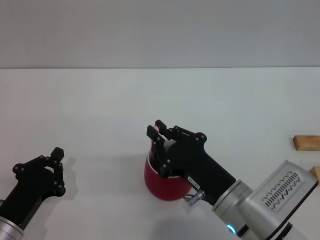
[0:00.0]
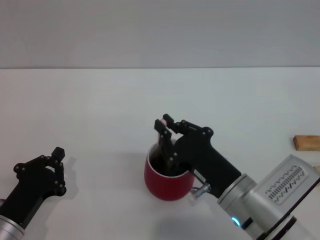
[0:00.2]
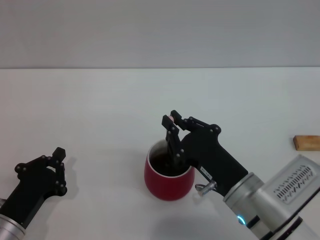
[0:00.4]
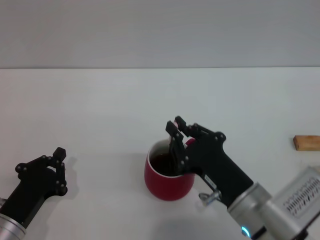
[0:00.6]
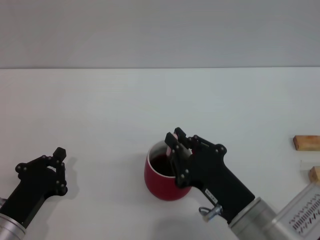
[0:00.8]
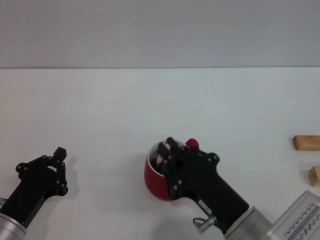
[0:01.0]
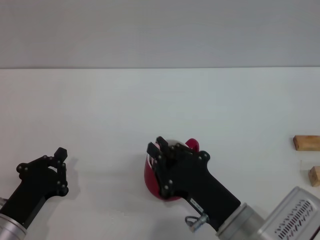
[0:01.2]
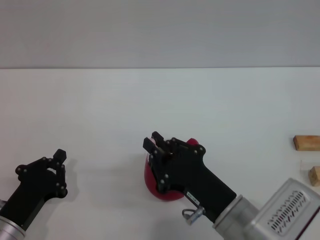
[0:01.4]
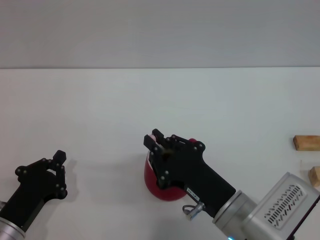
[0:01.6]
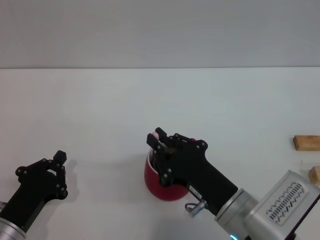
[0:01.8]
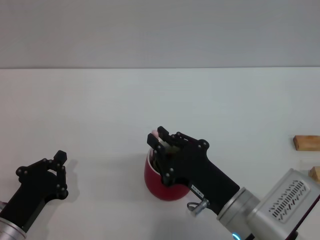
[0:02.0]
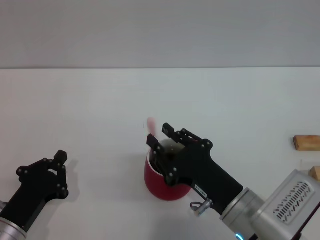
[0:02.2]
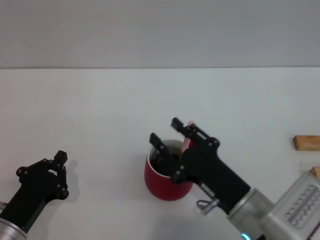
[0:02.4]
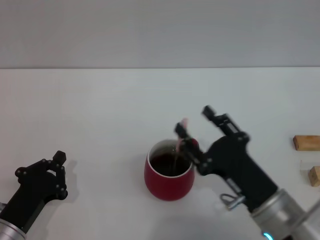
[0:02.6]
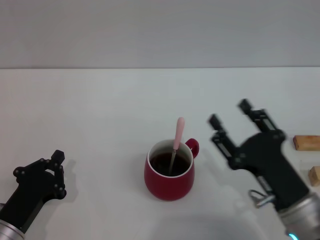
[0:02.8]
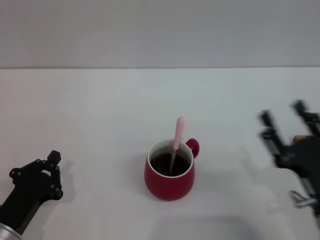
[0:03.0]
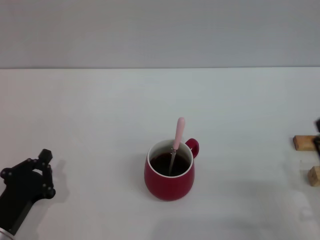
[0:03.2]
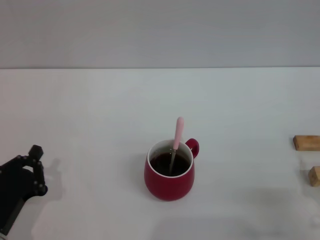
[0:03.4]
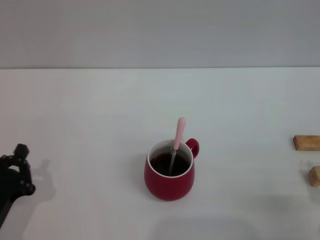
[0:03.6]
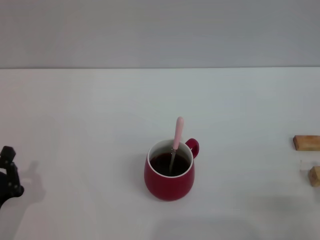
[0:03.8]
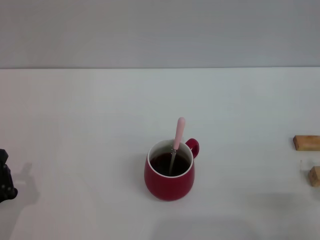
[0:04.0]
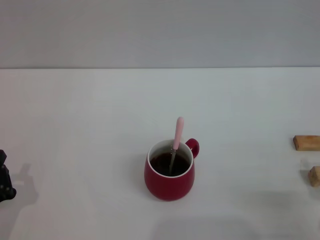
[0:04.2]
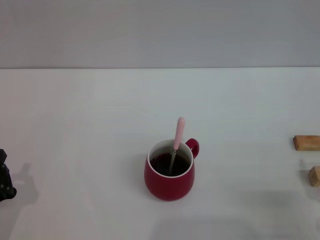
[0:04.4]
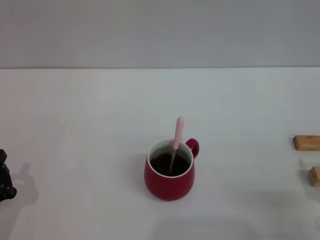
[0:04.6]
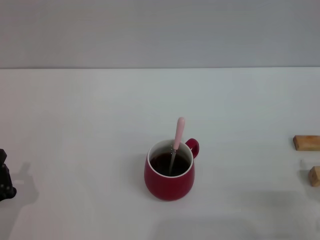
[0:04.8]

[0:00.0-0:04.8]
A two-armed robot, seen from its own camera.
Task of the whole recording: Move the red cup to the center, lift the pink spoon, stir it three times in the cup, and put the spoon into the cup.
Step, 0:00.0 to 0:02.6: Stir the coffee in the cup with the right gripper.
0:00.0 to 0:01.6: There are only small adjustments of the grippers.
0:01.6 to 0:03.2: The right gripper moves to the right, approximately 15 cm, and opens its fingers.
0:03.2 to 0:04.8: The grippers make only small movements.

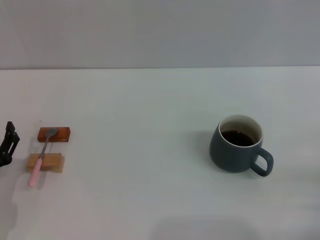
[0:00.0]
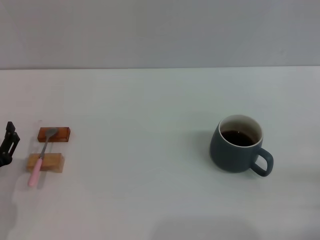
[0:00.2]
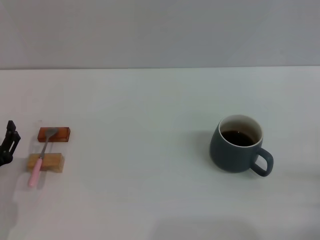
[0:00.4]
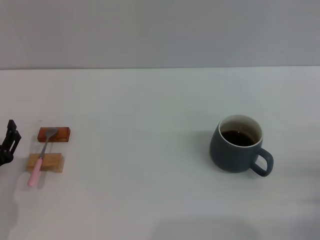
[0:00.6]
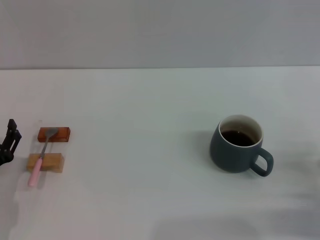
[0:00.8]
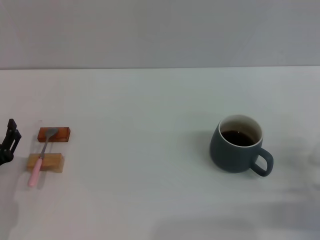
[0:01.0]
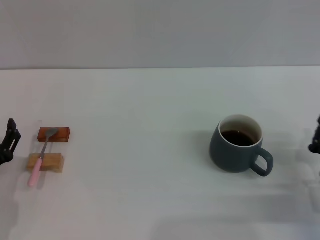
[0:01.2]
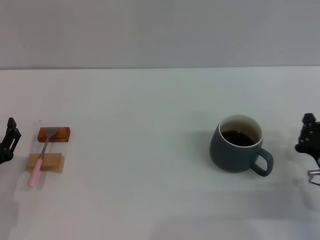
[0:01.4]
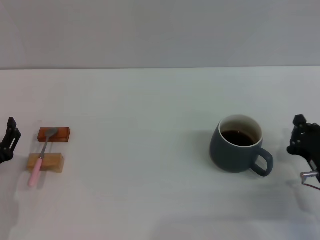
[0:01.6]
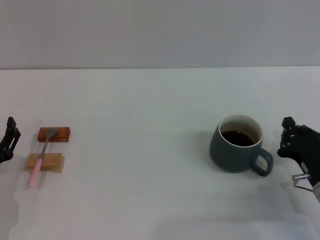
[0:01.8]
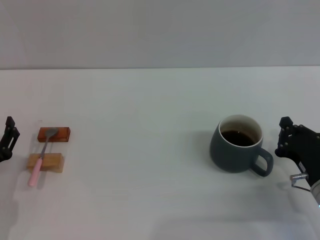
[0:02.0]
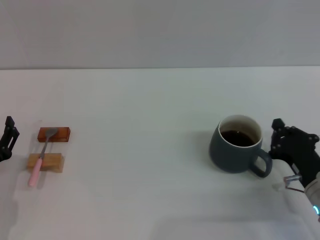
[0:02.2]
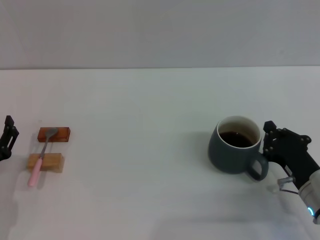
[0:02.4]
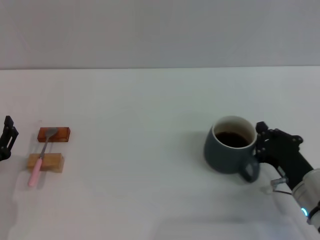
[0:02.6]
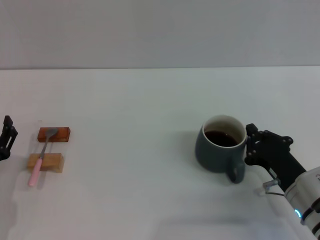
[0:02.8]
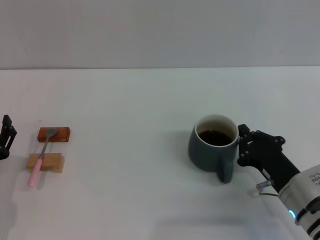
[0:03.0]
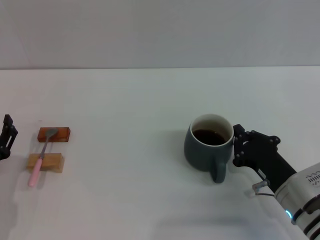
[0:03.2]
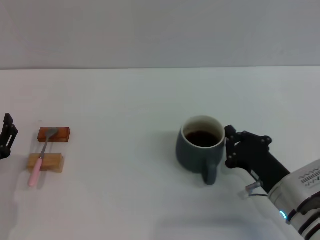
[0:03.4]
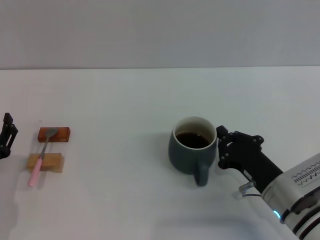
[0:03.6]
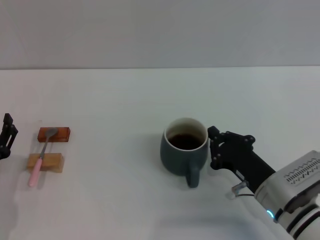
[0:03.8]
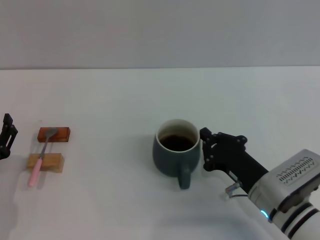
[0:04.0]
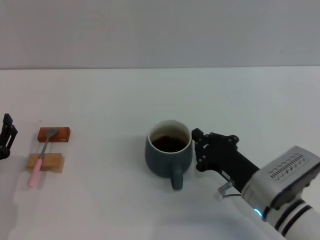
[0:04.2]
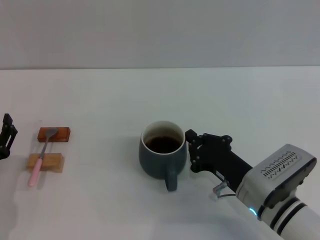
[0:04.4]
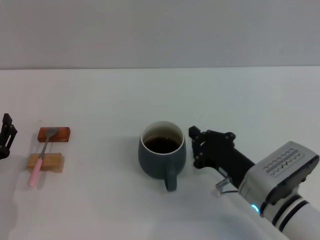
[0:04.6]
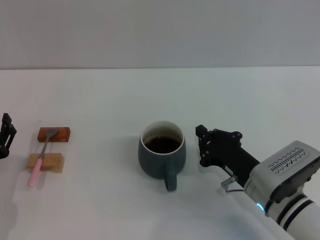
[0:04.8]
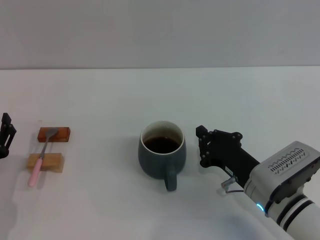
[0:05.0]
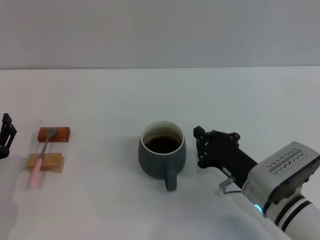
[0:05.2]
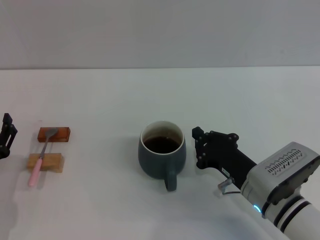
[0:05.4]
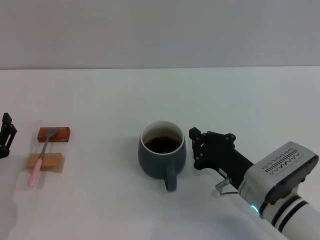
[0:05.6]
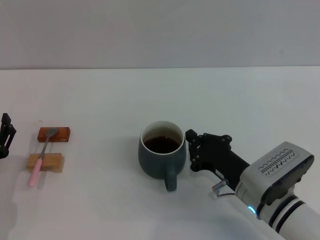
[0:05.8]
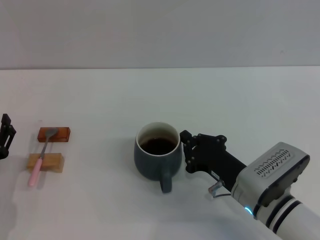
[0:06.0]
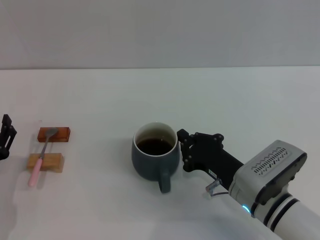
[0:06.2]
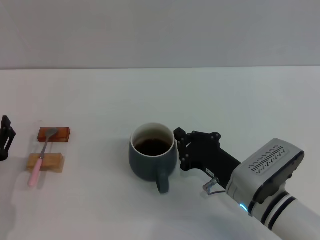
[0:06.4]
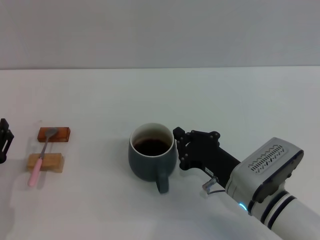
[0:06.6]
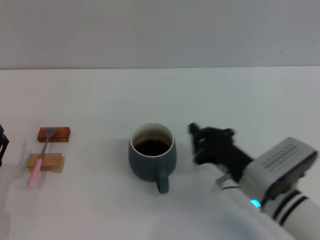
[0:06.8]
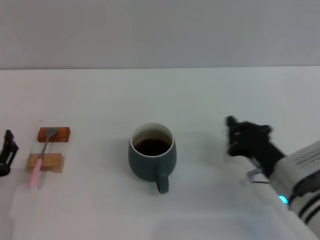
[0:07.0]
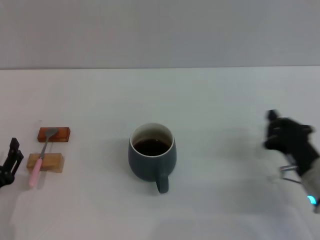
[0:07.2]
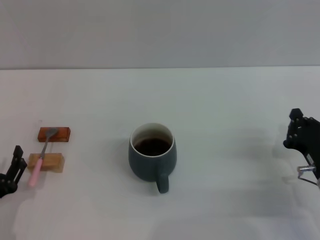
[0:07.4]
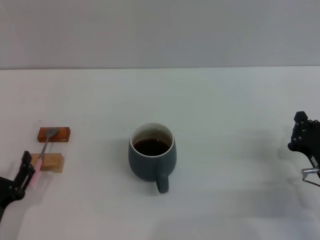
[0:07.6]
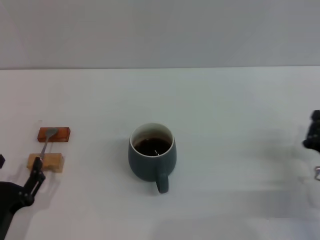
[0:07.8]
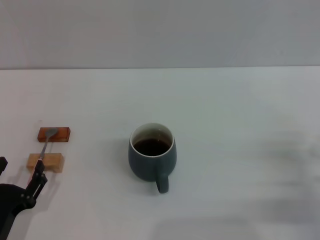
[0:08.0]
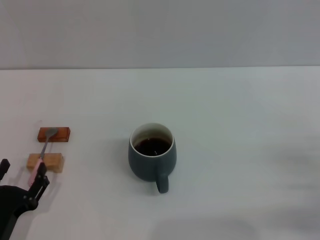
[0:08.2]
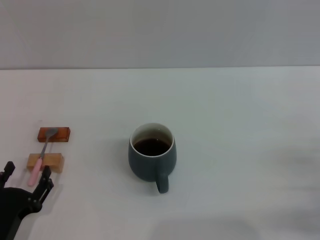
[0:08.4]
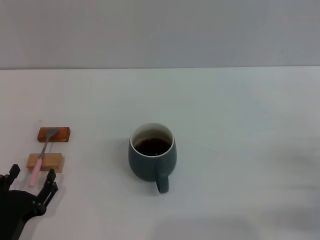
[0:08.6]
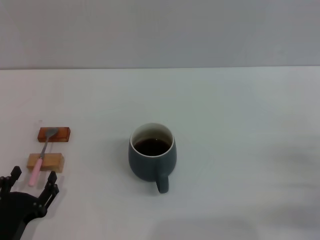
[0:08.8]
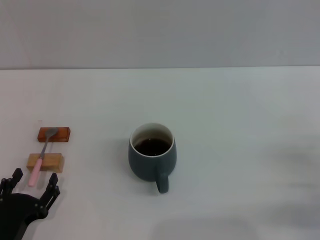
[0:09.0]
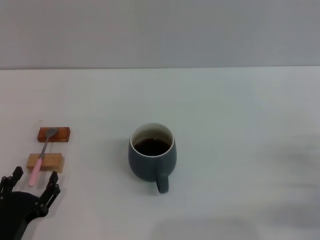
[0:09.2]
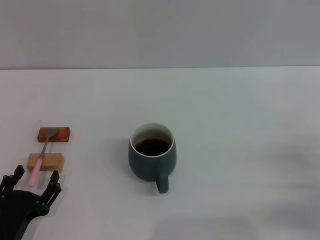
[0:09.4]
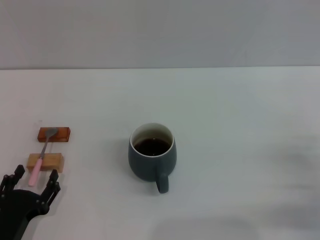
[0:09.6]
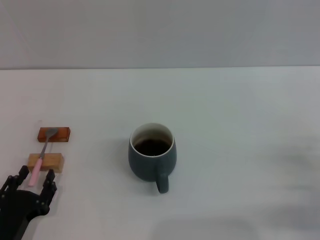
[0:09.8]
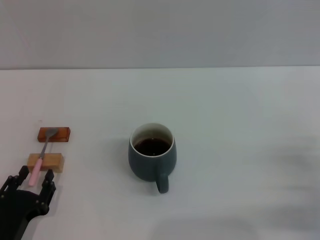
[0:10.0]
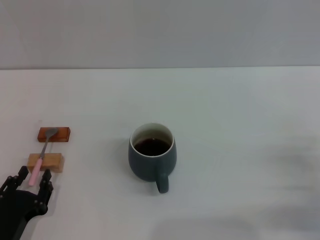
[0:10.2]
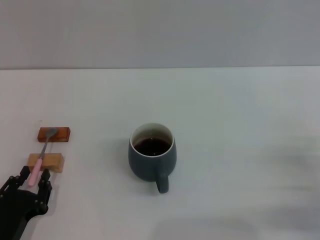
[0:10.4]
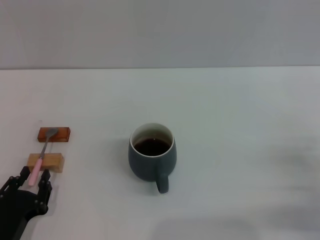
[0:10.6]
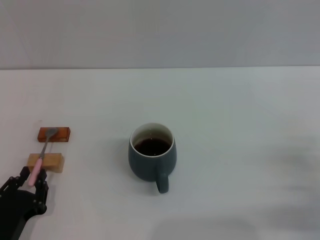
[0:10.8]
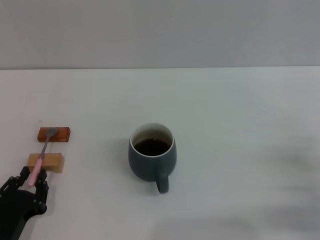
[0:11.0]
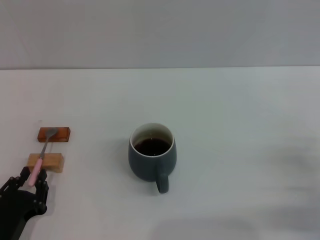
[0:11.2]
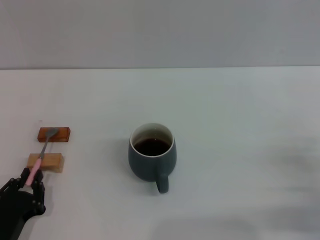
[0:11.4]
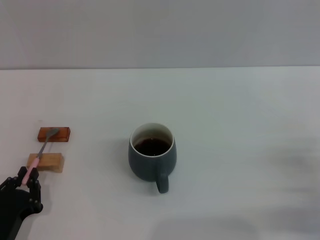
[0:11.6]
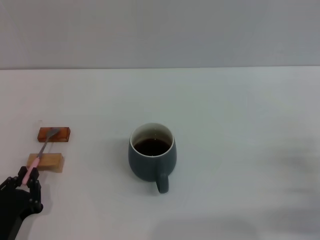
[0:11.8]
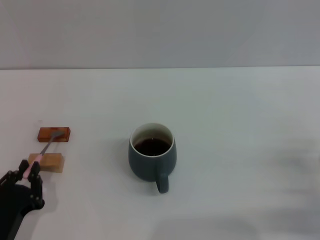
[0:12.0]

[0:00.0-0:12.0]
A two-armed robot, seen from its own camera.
Task of the whole recording: Move the grey cup to the center, lift the pink spoon, stir it three times in the cup, and put the spoon into the cup.
Step, 0:00.0 to 0:06.8: Move the cup with coffee to the center of view with the right gripper.
0:00.0 to 0:01.6: The right gripper shifts roughly 10 cm forward and to the left.
0:01.6 to 0:03.0: The right gripper moves to the left, approximately 5 cm.
0:03.0 to 0:04.4: The right gripper shifts about 5 cm to the left.
0:04.4 to 0:06.0: Both grippers stay put.
0:06.0 to 0:07.6: The right gripper moves to the right, approximately 10 cm. The left gripper is displaced backward by about 5 cm.
0:09.0 to 0:10.4: The left gripper closes its fingers.
0:10.4 to 0:12.0: The left gripper closes its fingers.

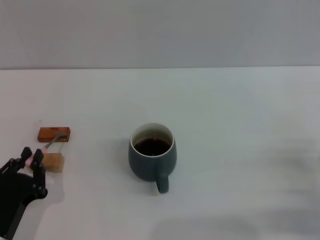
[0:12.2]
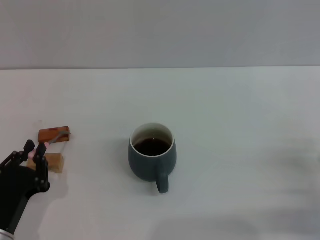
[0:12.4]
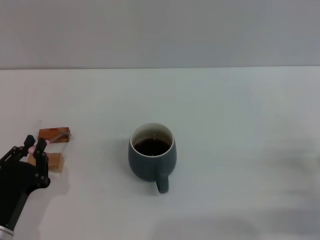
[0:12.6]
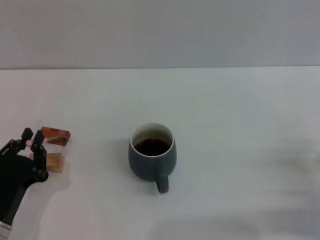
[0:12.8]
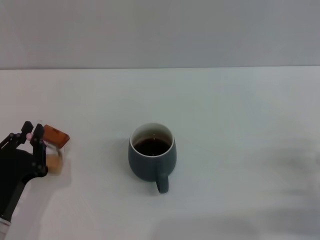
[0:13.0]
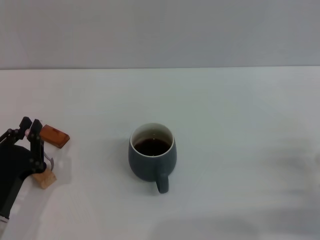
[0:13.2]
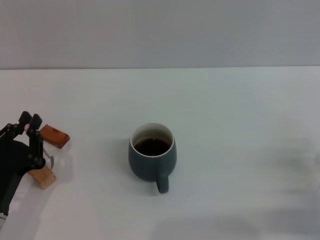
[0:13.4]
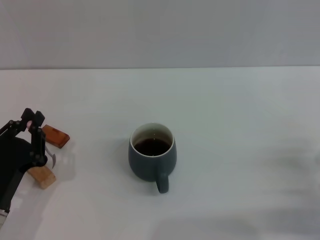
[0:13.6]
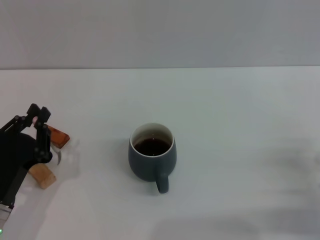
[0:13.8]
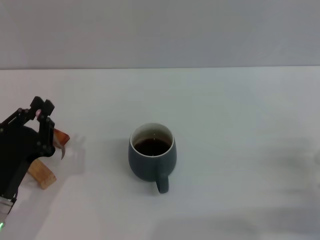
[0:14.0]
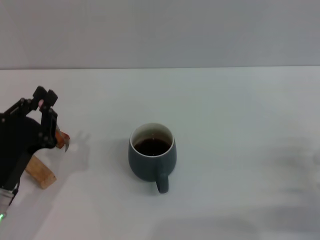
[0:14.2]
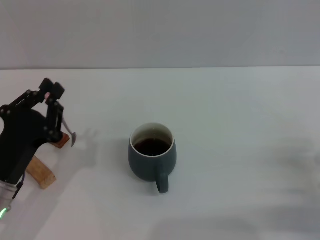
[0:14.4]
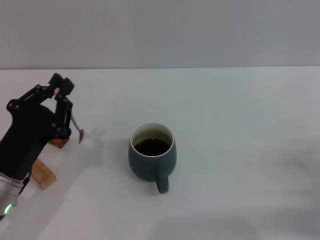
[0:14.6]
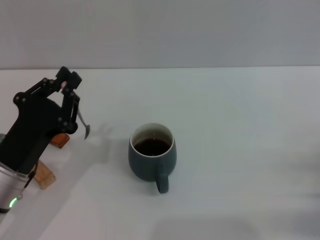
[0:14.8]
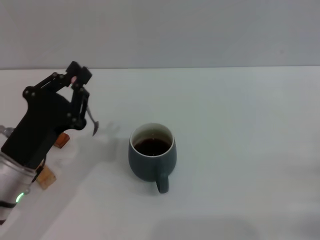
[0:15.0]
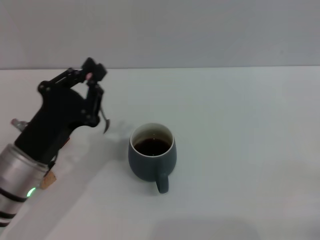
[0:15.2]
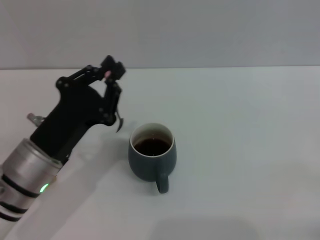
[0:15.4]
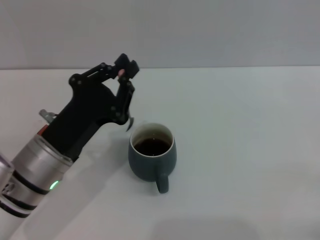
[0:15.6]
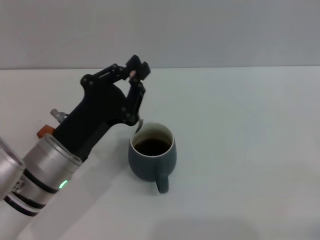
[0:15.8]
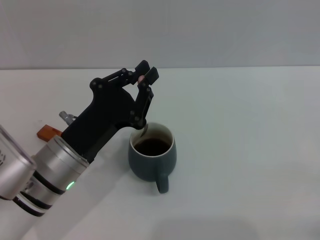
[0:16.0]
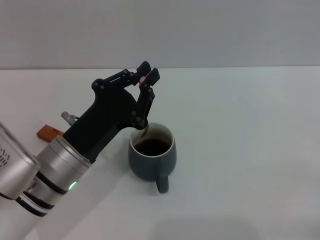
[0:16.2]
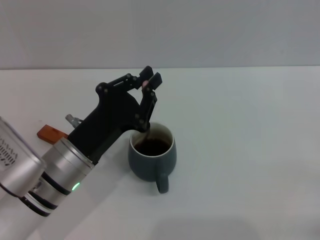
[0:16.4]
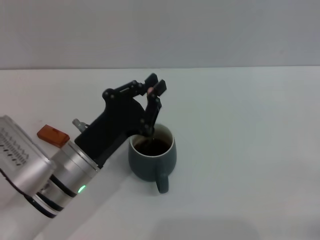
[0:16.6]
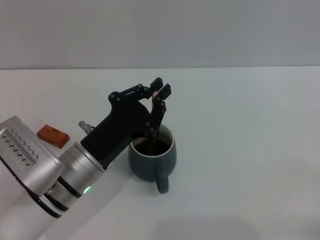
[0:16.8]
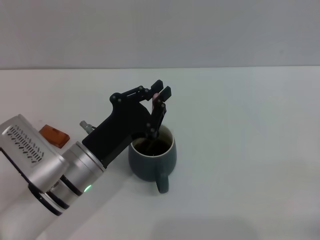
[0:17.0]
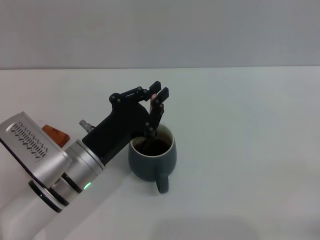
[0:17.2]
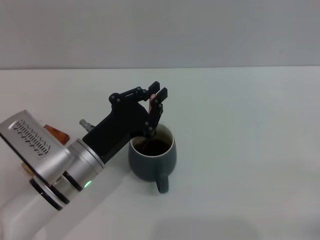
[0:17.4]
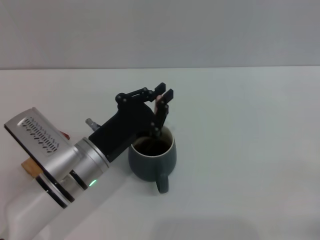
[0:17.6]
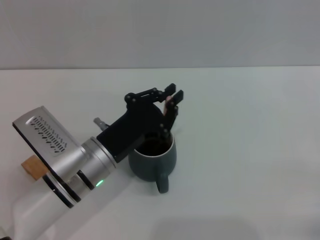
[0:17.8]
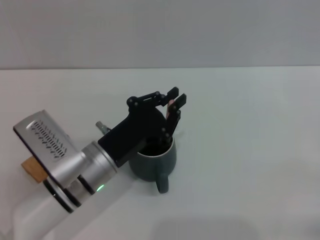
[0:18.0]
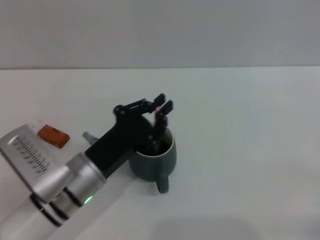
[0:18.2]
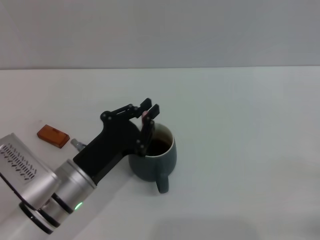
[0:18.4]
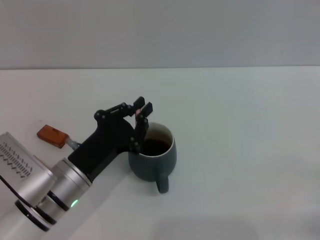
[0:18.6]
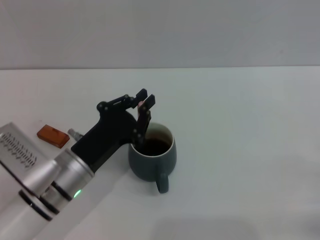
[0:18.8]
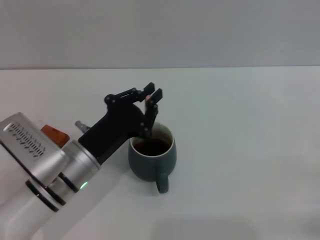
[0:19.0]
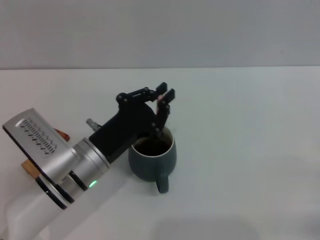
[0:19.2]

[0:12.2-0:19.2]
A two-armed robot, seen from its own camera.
Task of the whole recording: Move the grey cup to the center, lift the pink spoon, stir it three times in the cup, and put the spoon into the cup.
Step, 0:12.2 to 0:14.2: Pick up the spoon with the left gripper.
0:12.2 to 0:13.6: The grippers move only a little.
0:13.6 to 0:15.0: The left gripper moves roughly 5 cm.
0:15.0 to 0:16.4: The left gripper moves to the right, roughly 5 cm.
0:16.4 to 0:19.2: There are only small adjustments of the grippers.
